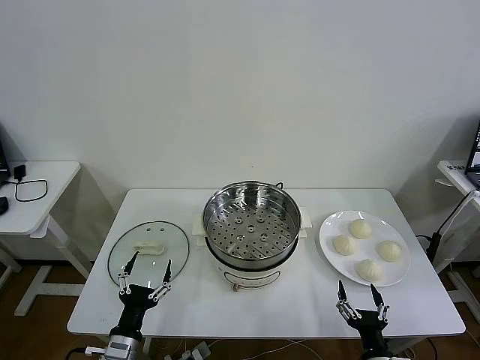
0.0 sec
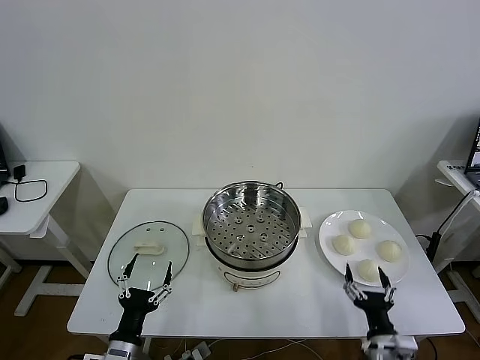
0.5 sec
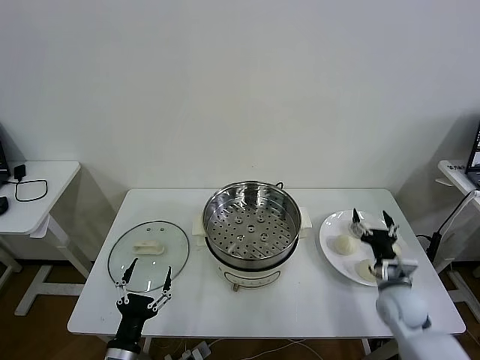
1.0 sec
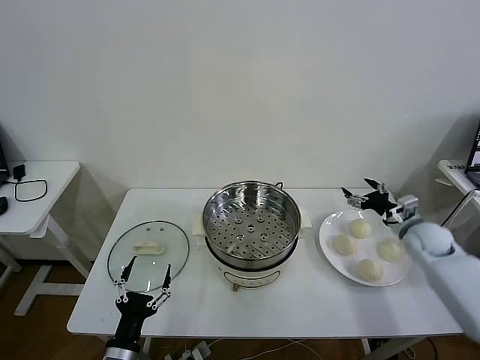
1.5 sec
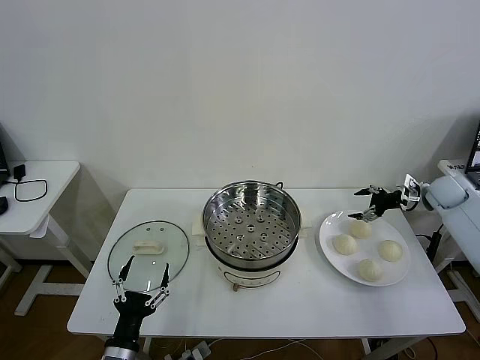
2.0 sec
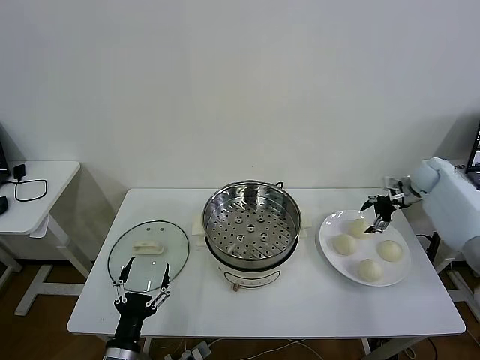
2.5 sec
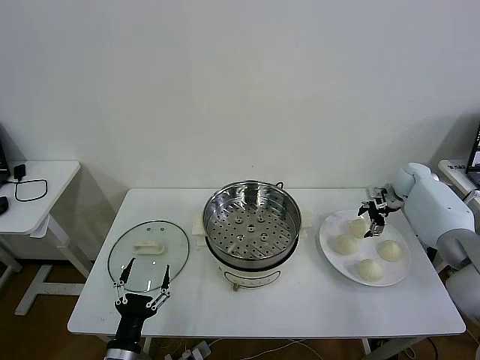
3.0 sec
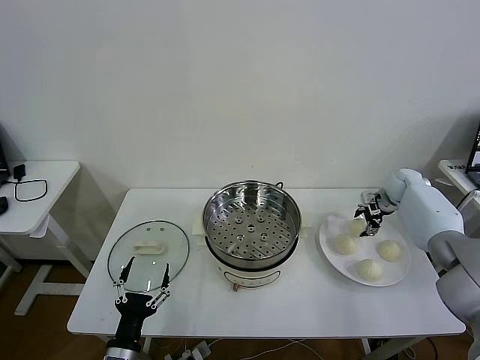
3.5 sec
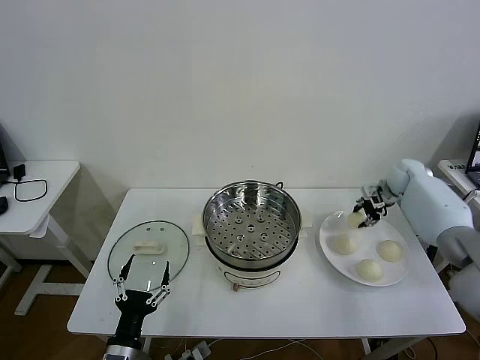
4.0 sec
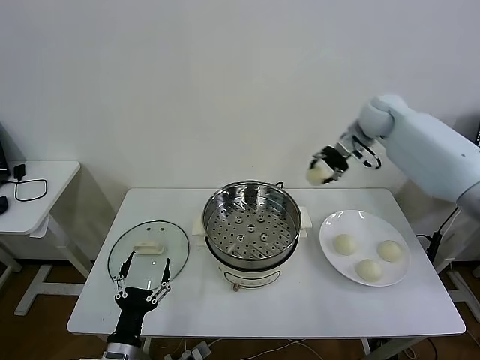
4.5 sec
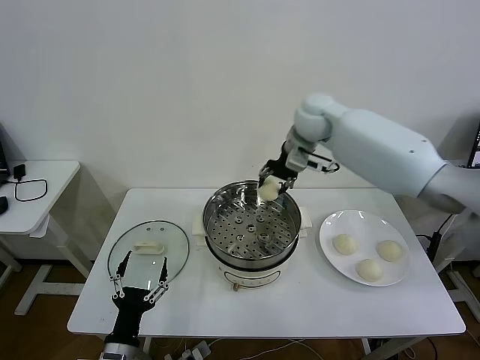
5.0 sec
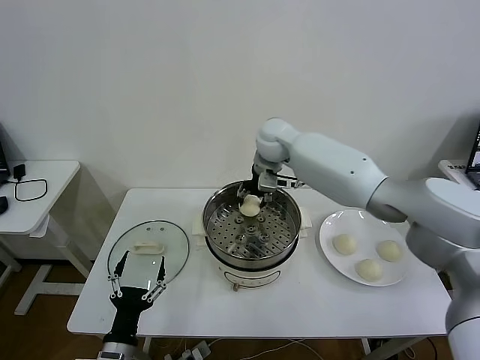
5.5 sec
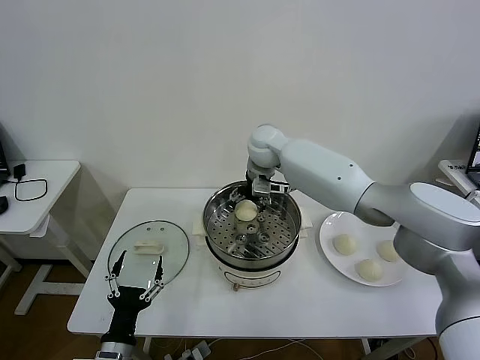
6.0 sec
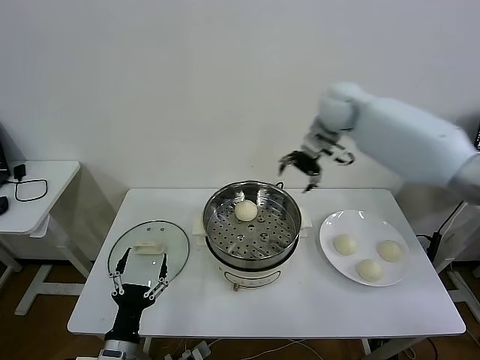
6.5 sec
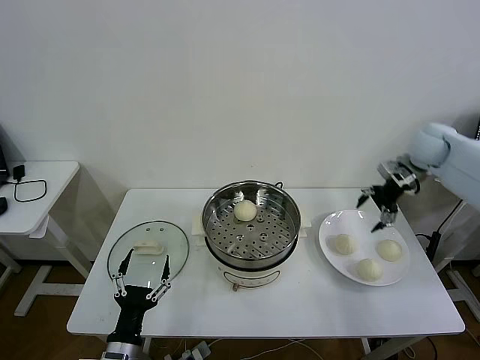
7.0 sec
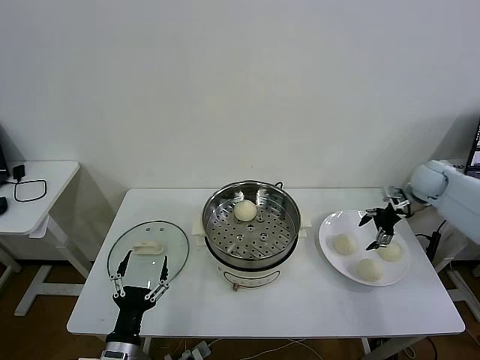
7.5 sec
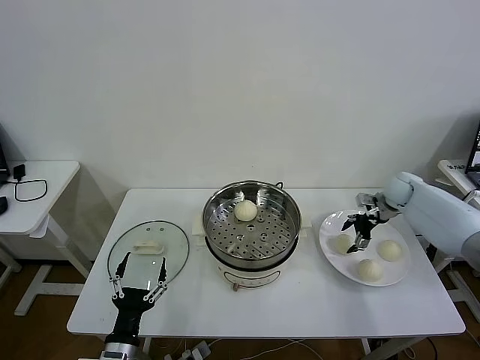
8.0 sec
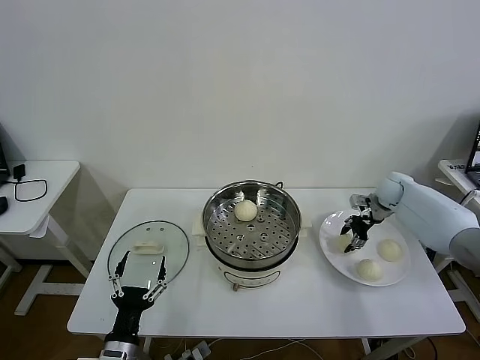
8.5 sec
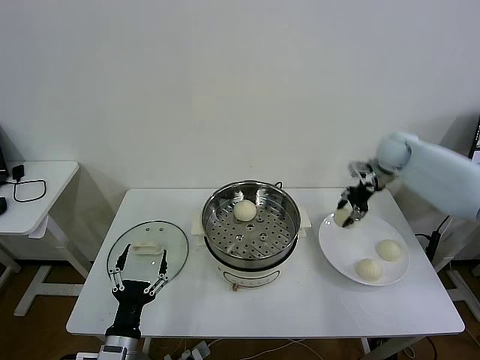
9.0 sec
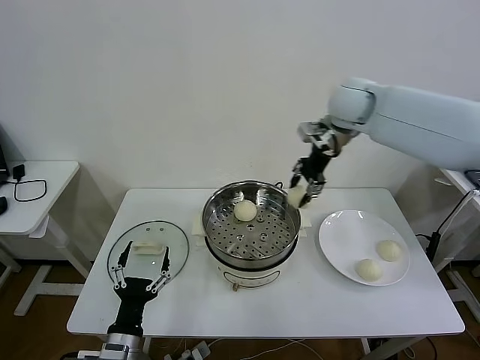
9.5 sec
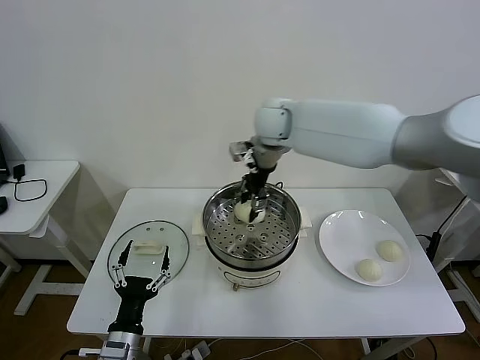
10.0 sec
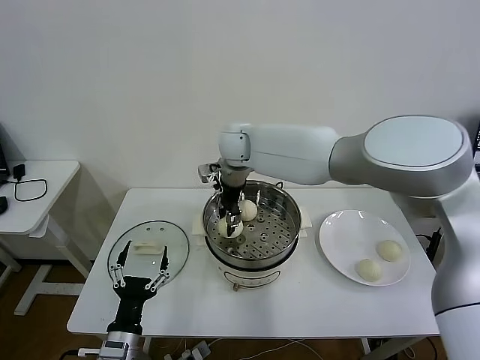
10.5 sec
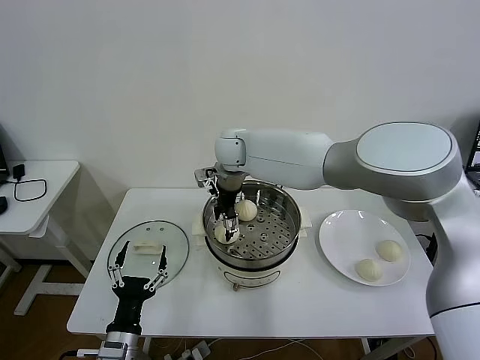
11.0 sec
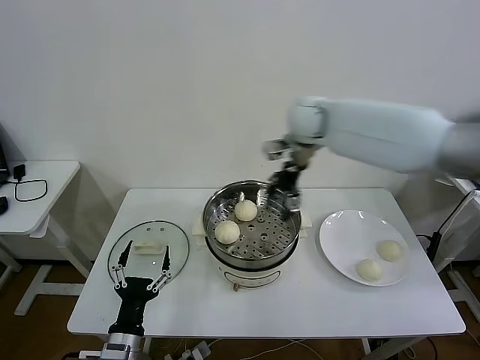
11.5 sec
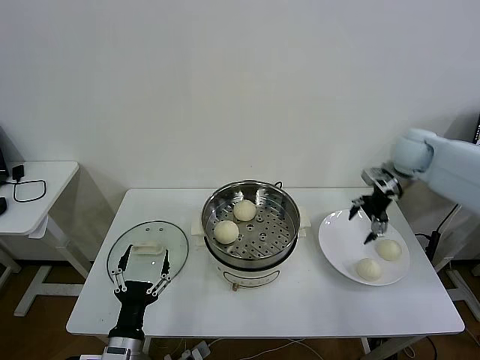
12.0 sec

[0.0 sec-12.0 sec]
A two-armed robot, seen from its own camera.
Task of the whole recording: take steamed baozi put them in steamer then cover it.
Step, 0.0 sec to 3.5 sec: Grasp the baozi in the plate with right gripper.
Step, 4.0 sec to 6.0 sec: Place the baozi on the steamer with right gripper.
Step, 6.5 sec to 8.0 sec: Grasp the baozi in the plate with right gripper.
Step, 8.5 sec to 10.5 sec: Place the baozi on the steamer with right gripper.
2.0 sec to 4.0 sec: The right gripper shifts roughly 10 cm to the left and forward, and closes its fingers.
4.0 sec to 6.0 sec: The right gripper moves to the left, about 40 cm, and opens.
6.0 sec to 8.0 sec: The right gripper moves to the right and downward, roughly 40 cm.
8.0 sec to 10.0 sec: The right gripper travels to the left and upward by some 40 cm, and closes its fingers.
10.0 sec to 12.0 sec: The right gripper goes approximately 35 cm to the right, and opens up.

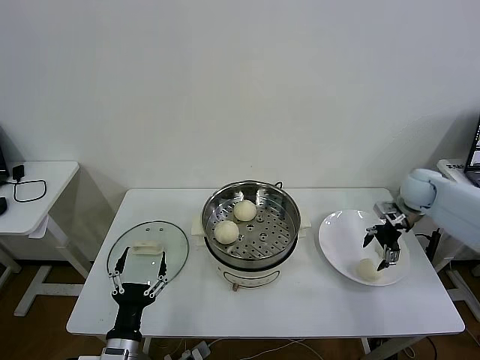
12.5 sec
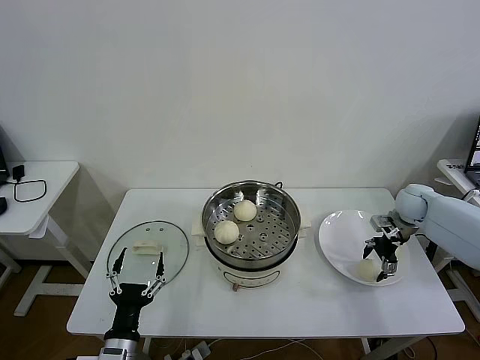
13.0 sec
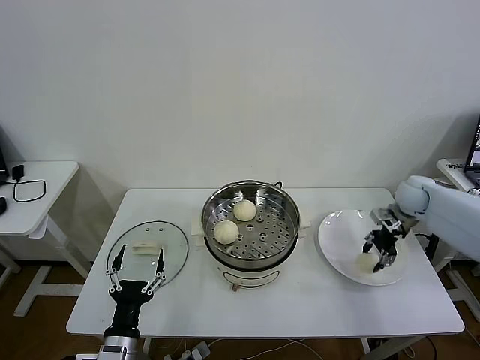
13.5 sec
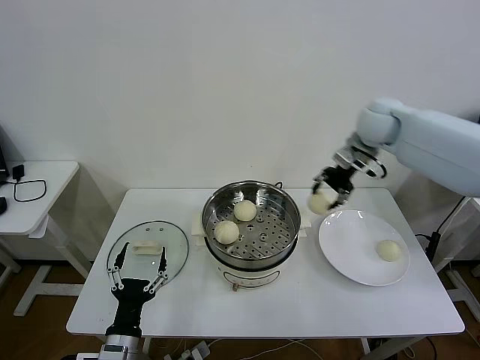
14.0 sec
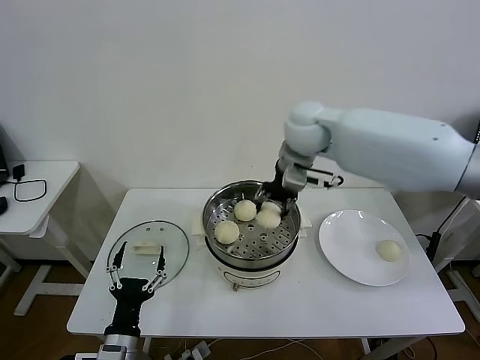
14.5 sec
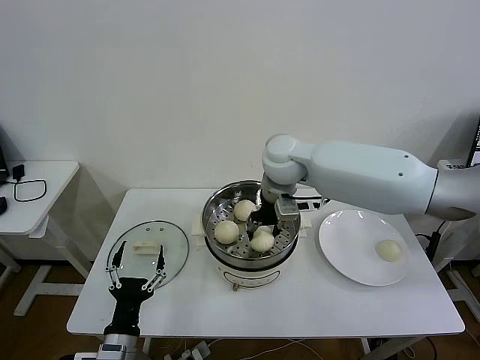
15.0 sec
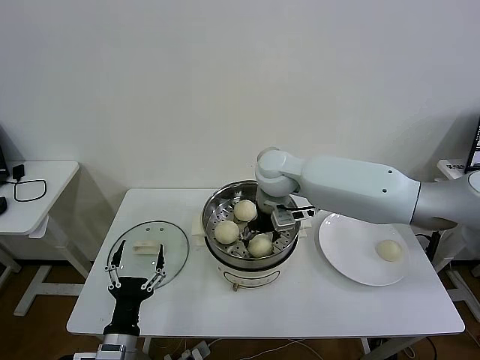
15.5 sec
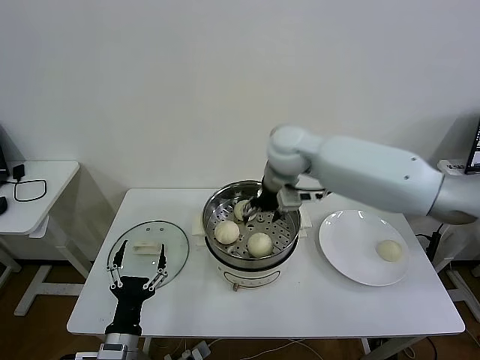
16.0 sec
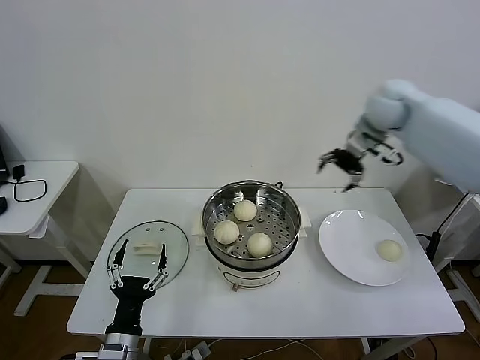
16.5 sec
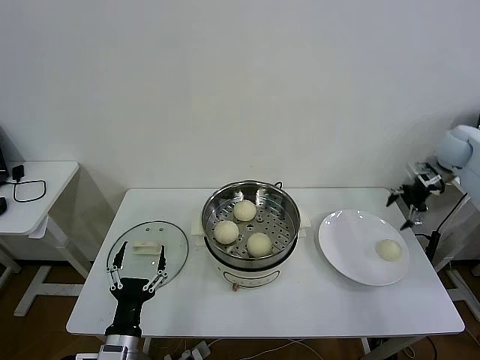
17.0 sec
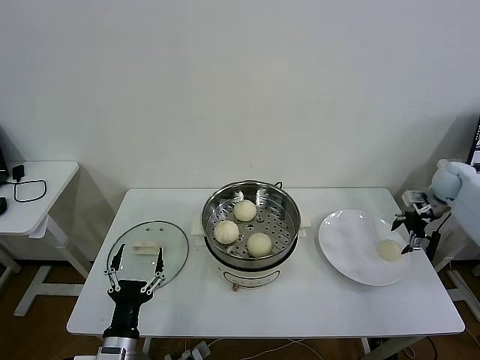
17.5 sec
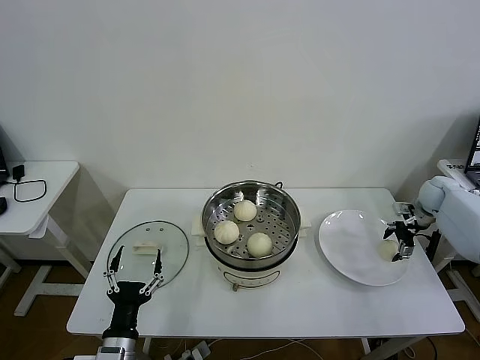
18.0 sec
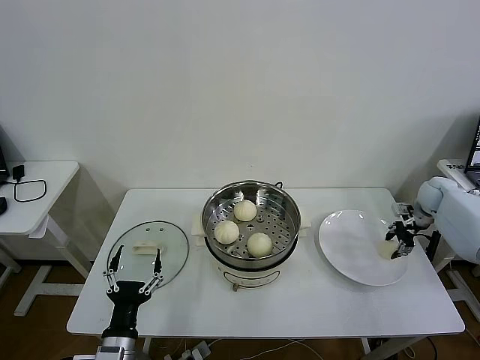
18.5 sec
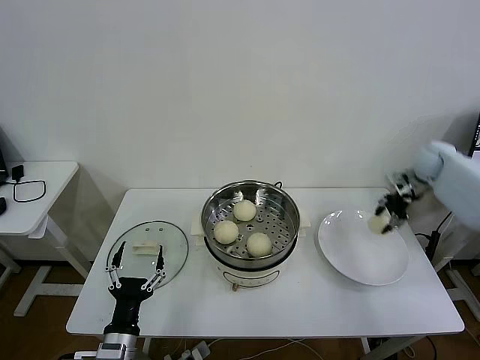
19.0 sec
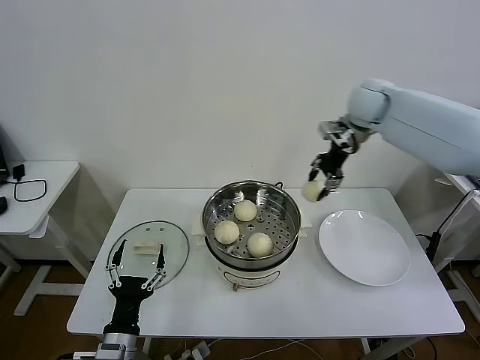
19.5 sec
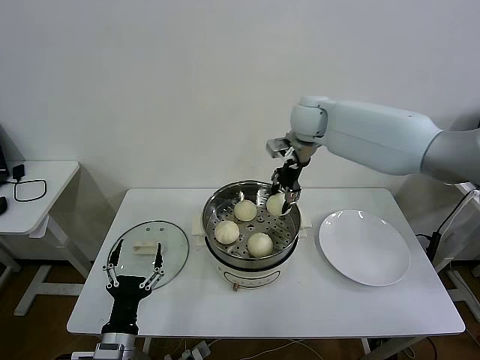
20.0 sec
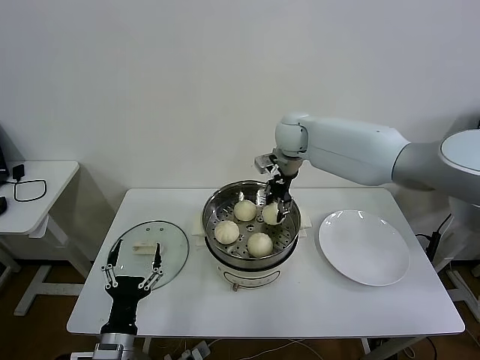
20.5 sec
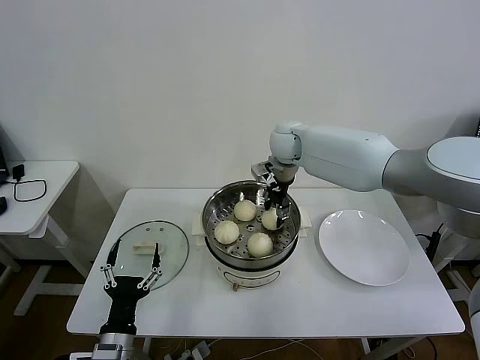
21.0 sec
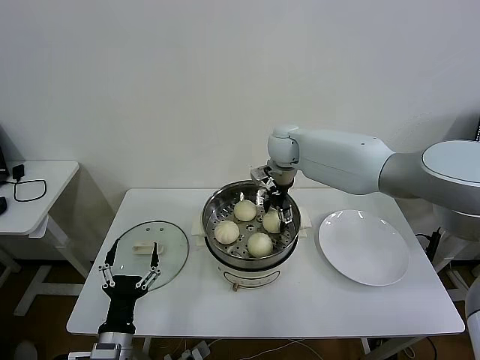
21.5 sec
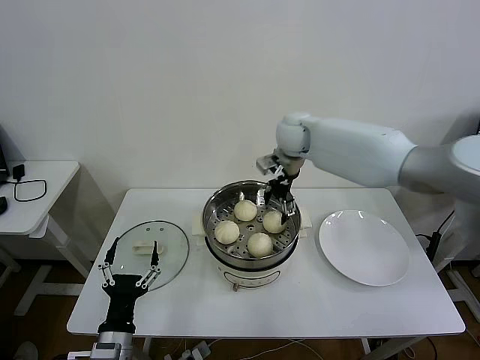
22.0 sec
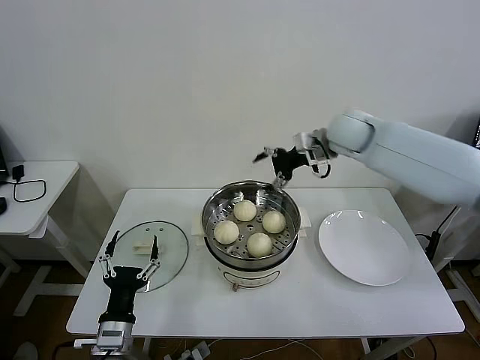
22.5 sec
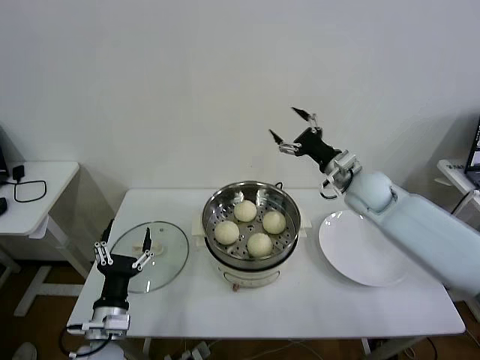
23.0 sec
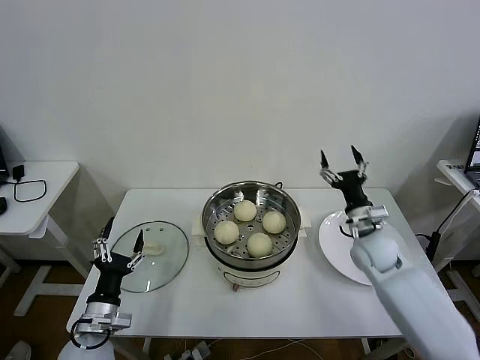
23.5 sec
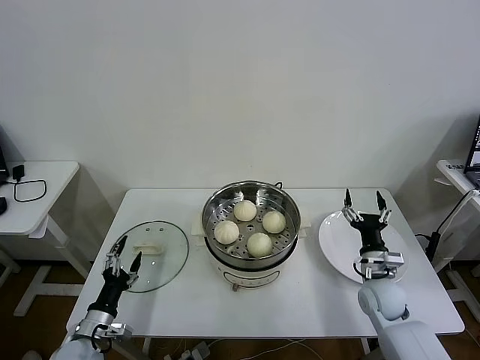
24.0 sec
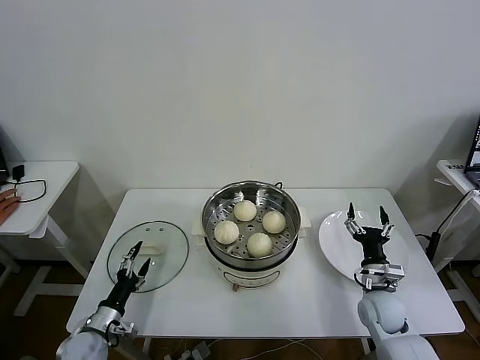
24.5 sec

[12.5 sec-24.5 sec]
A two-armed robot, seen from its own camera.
Task of the whole recording: take steamed baozi put them in steamer then cover it.
Step, 13.5 sec to 15.5 sec: Place the baozi on the steamer with right gripper.
Step, 16.0 sec to 18.0 sec: Grasp the baozi in the plate with right gripper.
Step, 18.5 sec to 22.0 sec: Place the baozi on the steamer with right gripper.
12.5 sec to 14.5 sec: The right gripper shifts roughly 35 cm to the left and upward, and closes up.
14.5 sec to 16.5 sec: The right gripper is displaced to the right by about 20 cm, and opens.
16.5 sec to 18.5 sec: The right gripper travels downward and to the right by approximately 30 cm, and closes up.
18.5 sec to 20.5 sec: The right gripper moves to the left, some 40 cm.
20.5 sec to 22.5 sec: The right gripper goes approximately 10 cm to the right, and opens up.
22.5 sec to 24.5 sec: The right gripper moves downward and backward, roughly 40 cm; the left gripper travels to the left, downward and forward by roughly 15 cm.

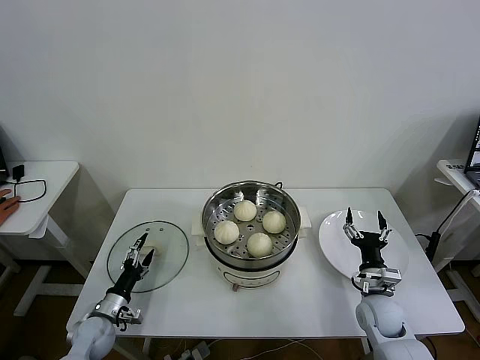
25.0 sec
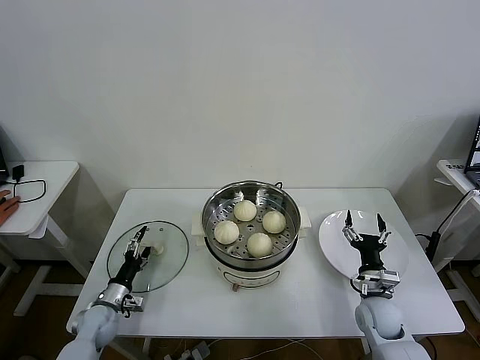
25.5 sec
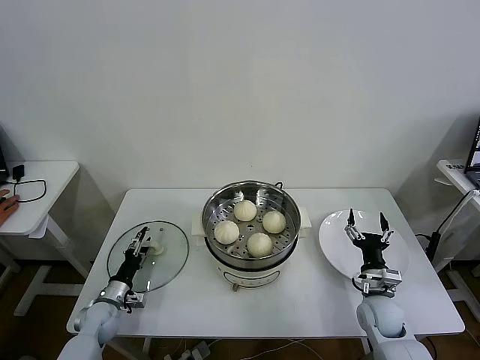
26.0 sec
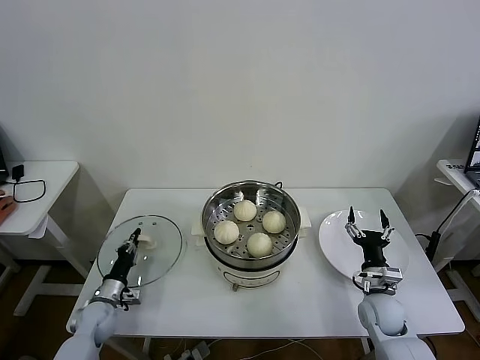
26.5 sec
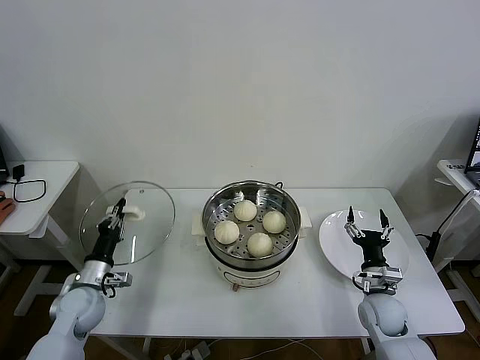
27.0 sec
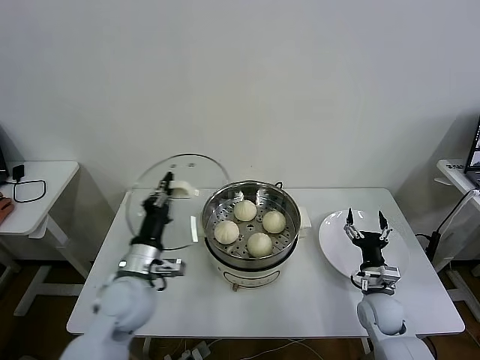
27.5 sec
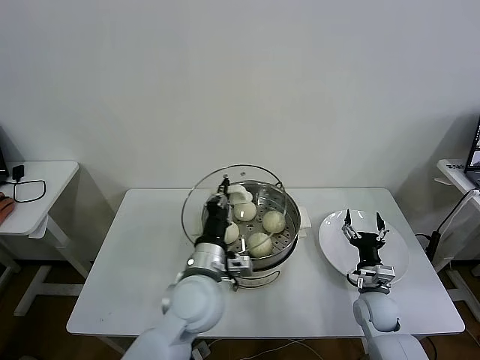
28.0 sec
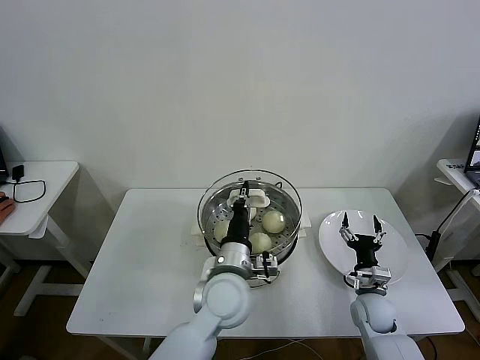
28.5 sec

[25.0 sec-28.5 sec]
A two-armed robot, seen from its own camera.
Task of the whole recording: take steamed baozi put them in steamer then cover it.
25.0 sec to 27.0 sec: The left gripper shifts about 10 cm upward, and closes.
27.0 sec to 28.5 sec: The left gripper travels to the right by about 35 cm.
